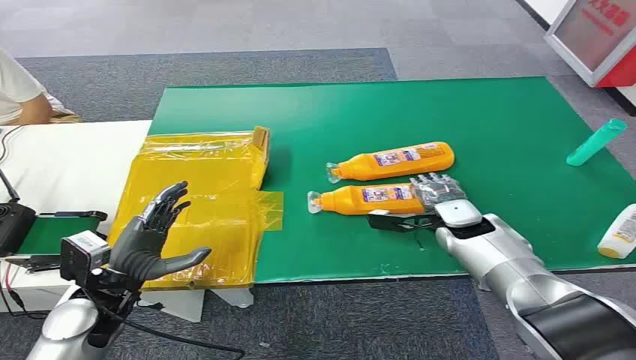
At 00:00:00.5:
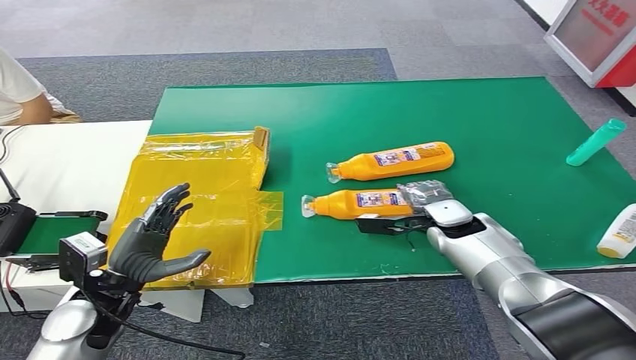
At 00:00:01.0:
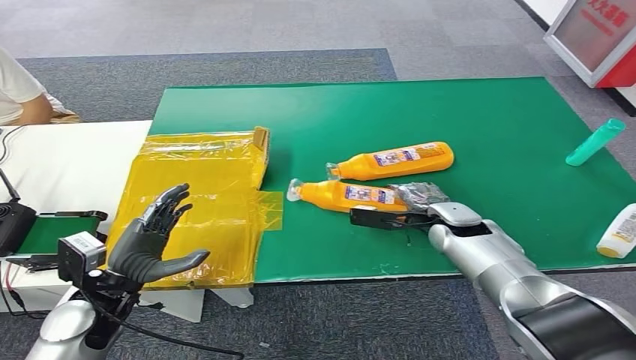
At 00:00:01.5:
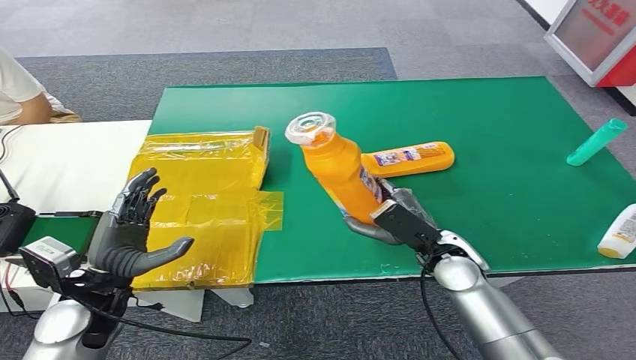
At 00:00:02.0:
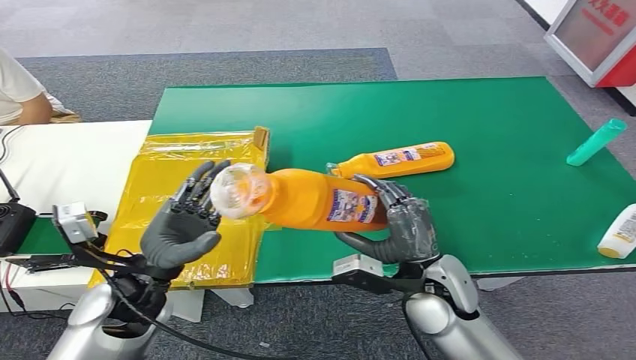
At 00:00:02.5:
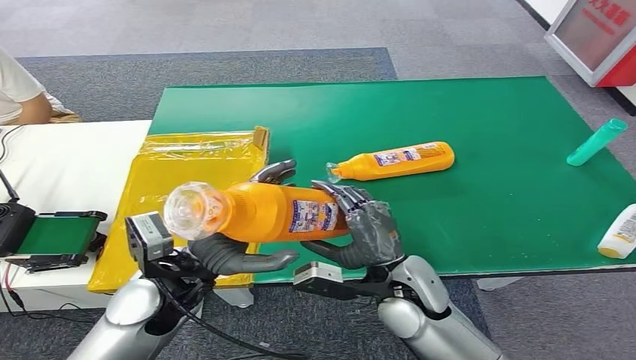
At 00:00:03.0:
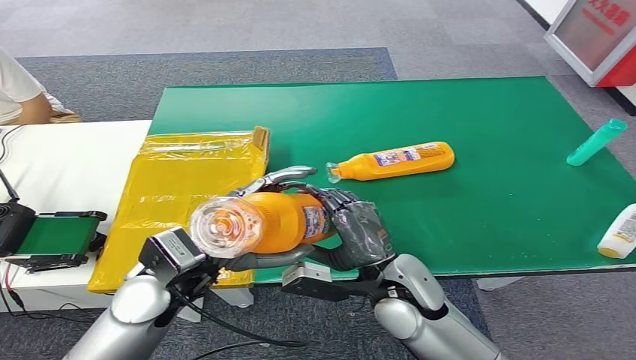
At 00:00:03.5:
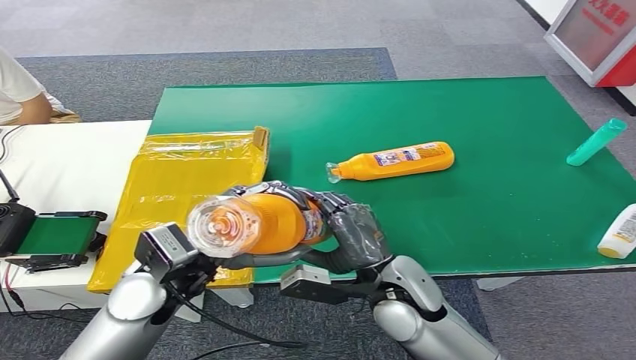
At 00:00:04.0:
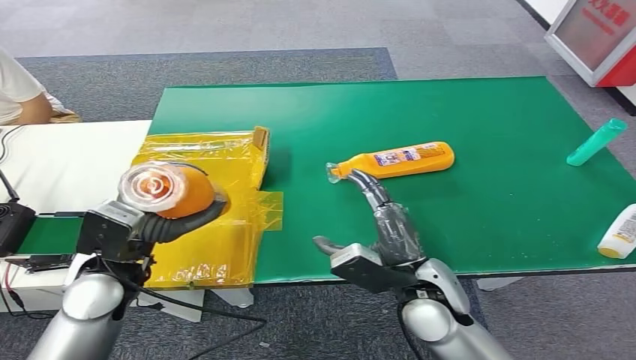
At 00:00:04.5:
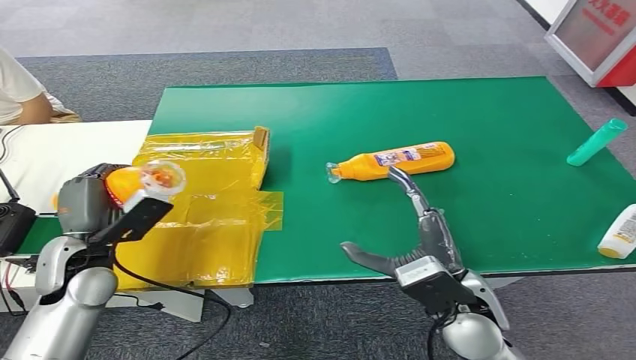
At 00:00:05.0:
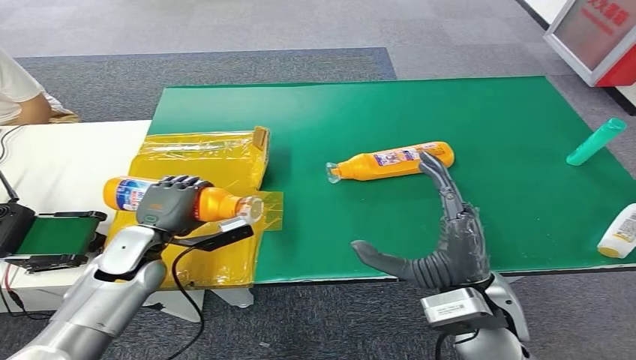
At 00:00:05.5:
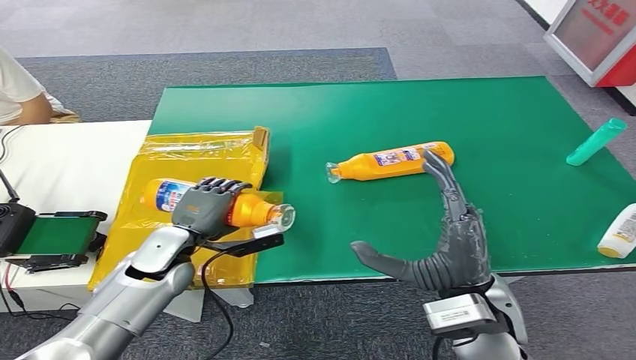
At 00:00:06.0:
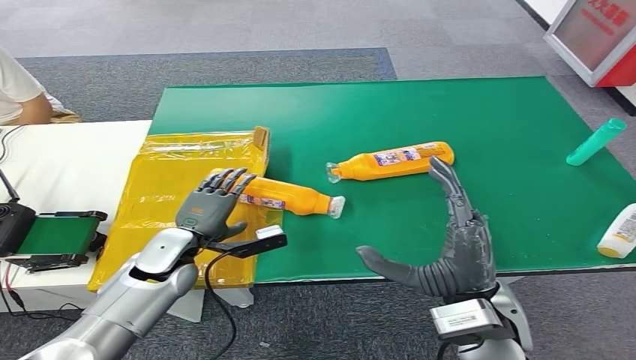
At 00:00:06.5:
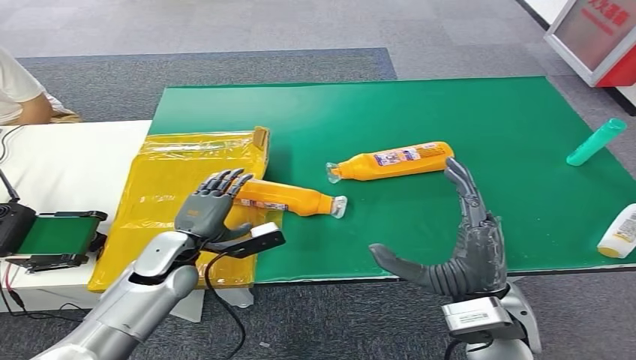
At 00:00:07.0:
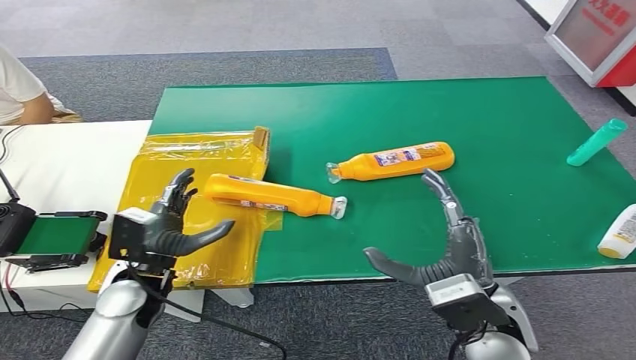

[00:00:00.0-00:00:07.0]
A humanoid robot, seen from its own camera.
Step, 00:00:00.0 to 00:00:01.5: Pick up the bottle from the table.
Step, 00:00:03.5 to 00:00:07.0: Turn the bottle to the front side.
00:00:02.0 to 00:00:03.5: The left hand travels to the right by some 5 cm, while the right hand moves to the left, approximately 5 cm.
00:00:03.5 to 00:00:05.0: The left hand heads to the left, downward and forward, covering some 15 cm. Meanwhile the right hand goes roughly 10 cm to the right and upward.
00:00:05.0 to 00:00:07.0: The left hand heads backward, covering about 5 cm.
